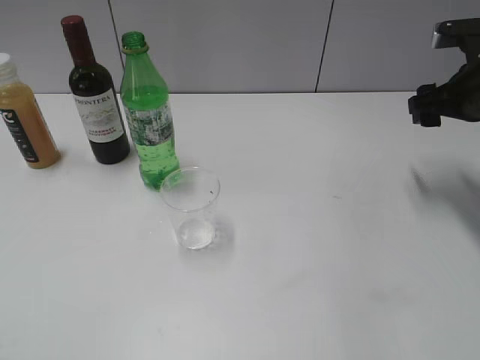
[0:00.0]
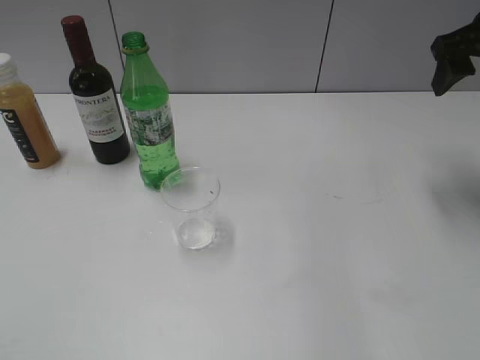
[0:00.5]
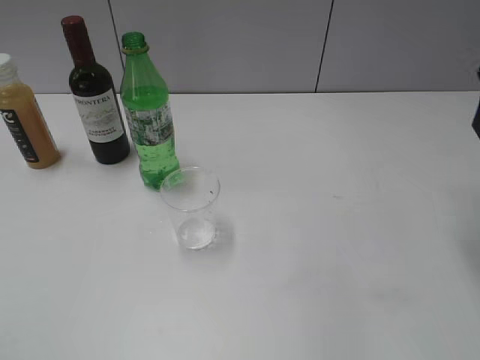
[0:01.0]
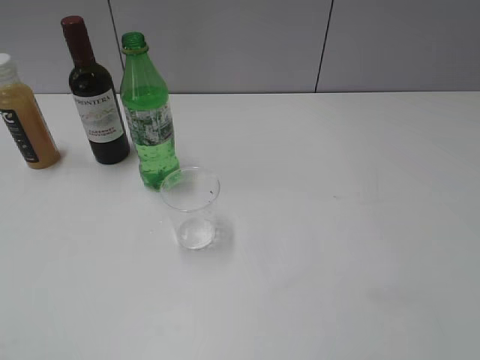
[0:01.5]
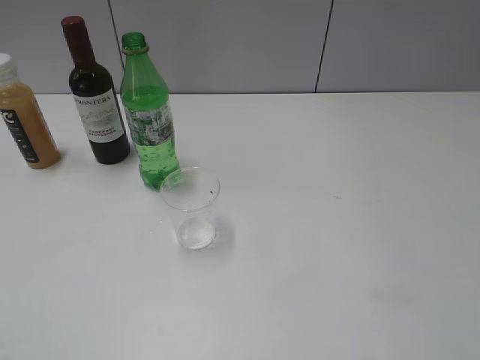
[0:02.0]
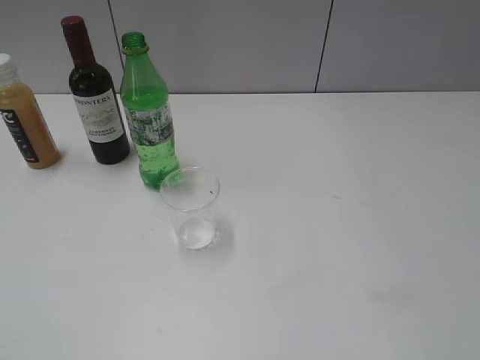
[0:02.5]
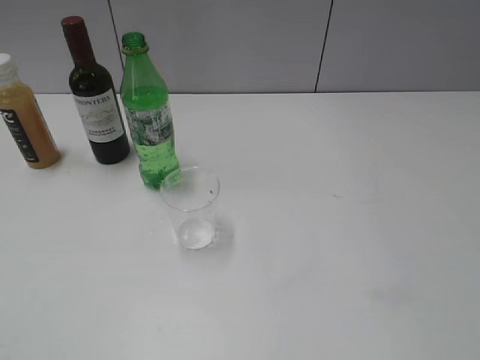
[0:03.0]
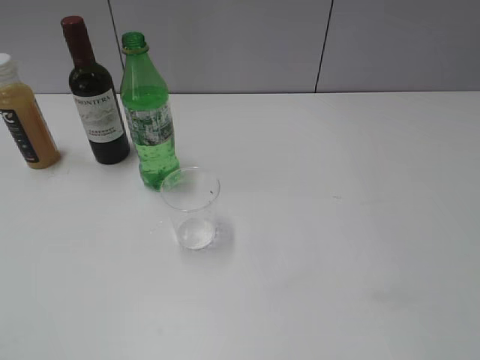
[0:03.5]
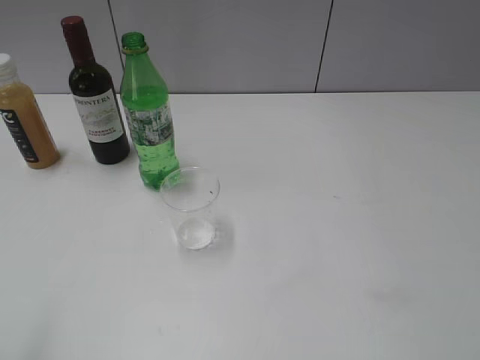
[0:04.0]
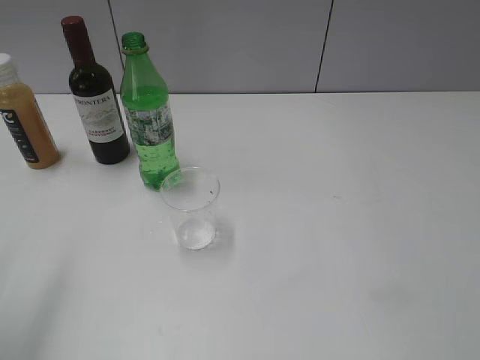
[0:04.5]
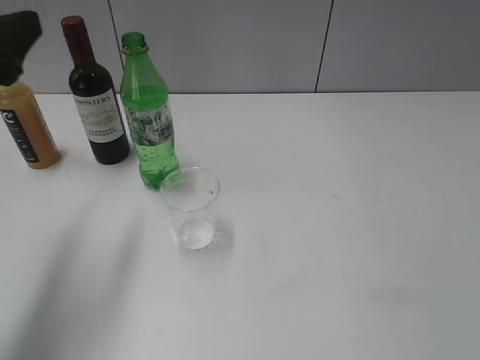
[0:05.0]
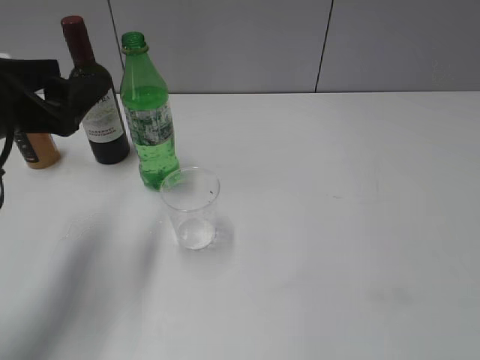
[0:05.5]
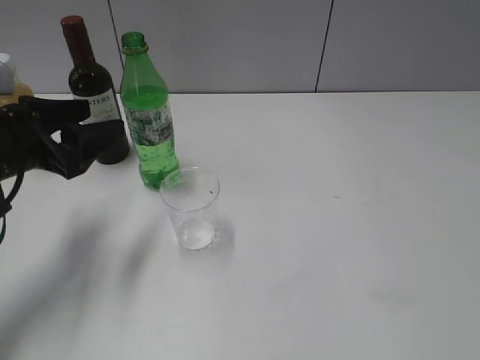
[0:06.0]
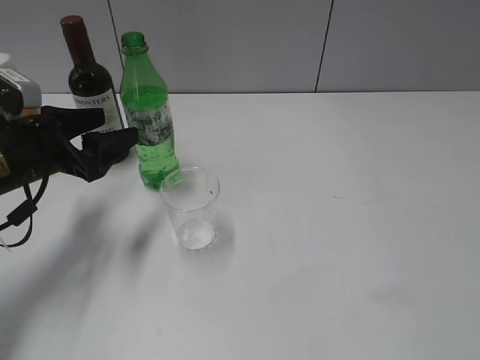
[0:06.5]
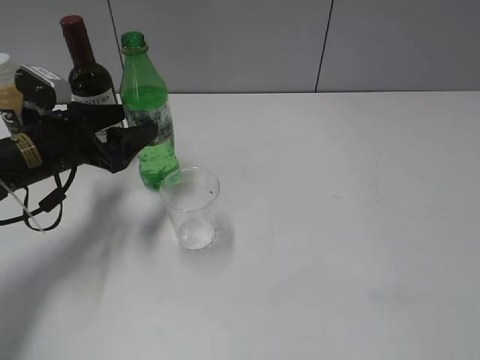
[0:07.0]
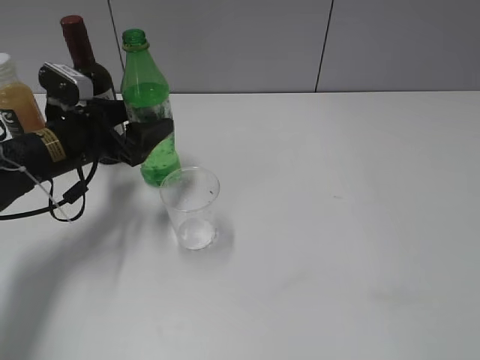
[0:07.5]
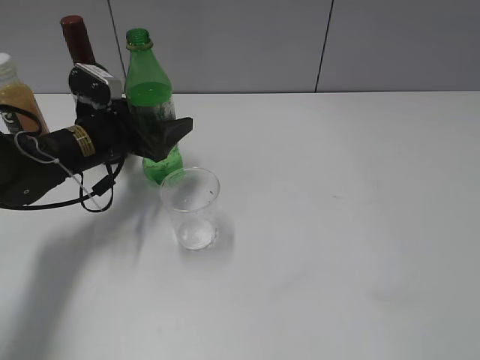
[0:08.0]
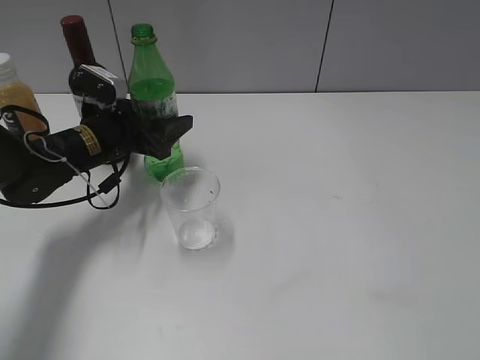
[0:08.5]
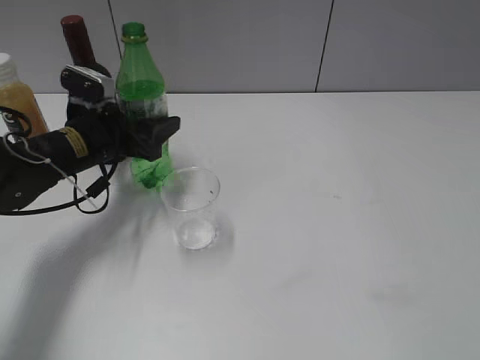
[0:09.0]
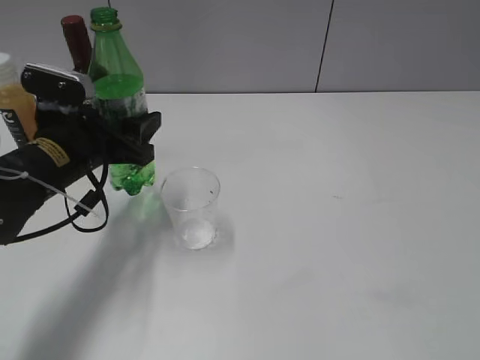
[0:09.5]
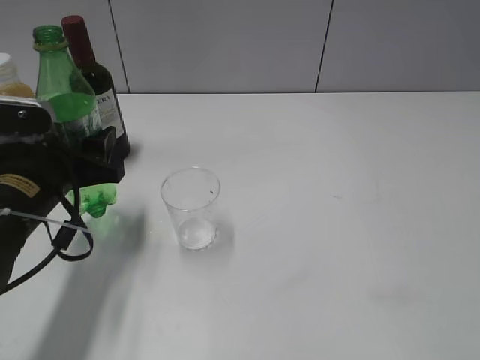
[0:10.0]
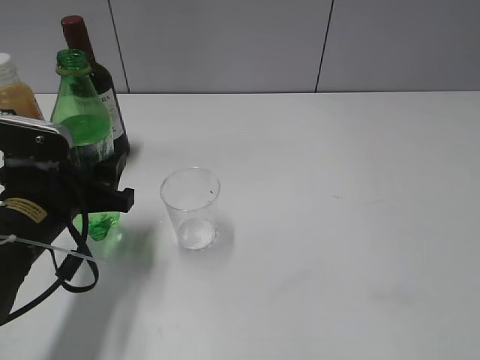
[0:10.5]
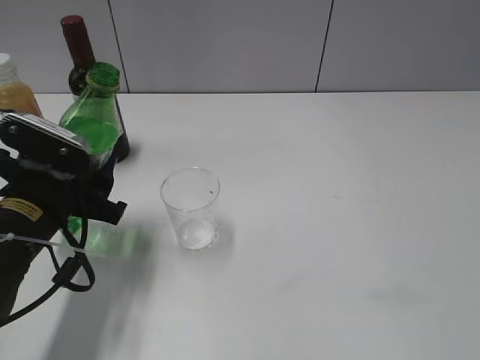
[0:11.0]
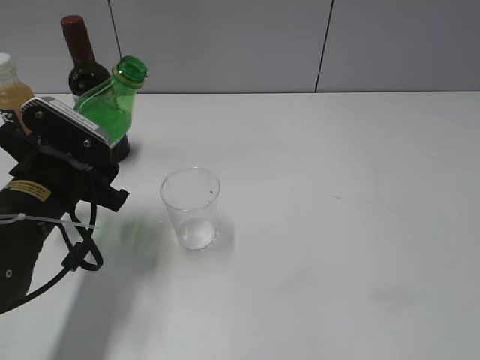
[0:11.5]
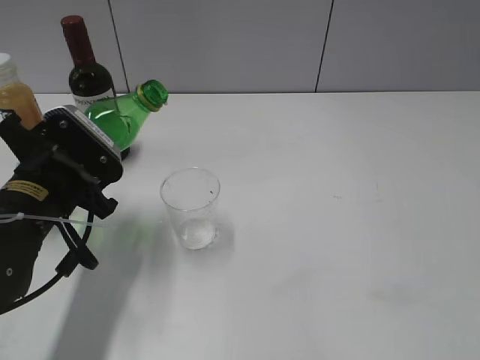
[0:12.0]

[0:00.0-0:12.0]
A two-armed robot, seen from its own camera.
Step, 0:00.0 to 0:08.5: Grasp the bottle with sprite with left gripper.
0:00.0 to 0:02.0: The right gripper moves backward, roughly 30 cm.
0:04.0 to 0:06.0: The left gripper goes some 25 cm forward and downward.
0:06.0 to 0:08.0: The left gripper shifts some 15 cm forward, downward and to the right.
0:08.0 to 0:10.0: The left gripper is displaced backward by approximately 10 cm, and closes.

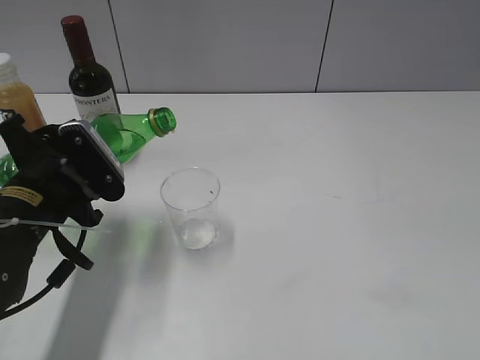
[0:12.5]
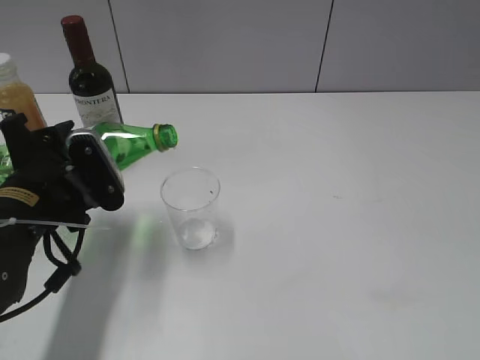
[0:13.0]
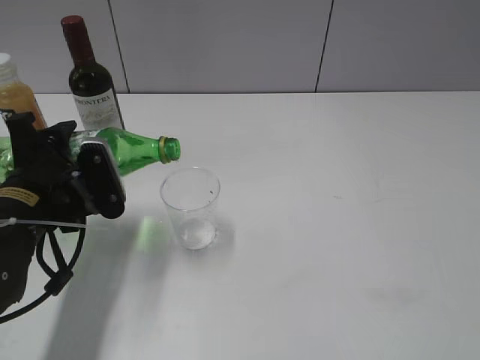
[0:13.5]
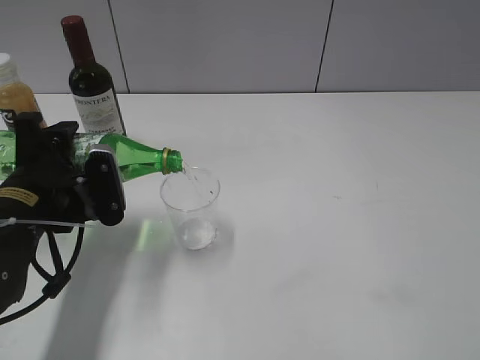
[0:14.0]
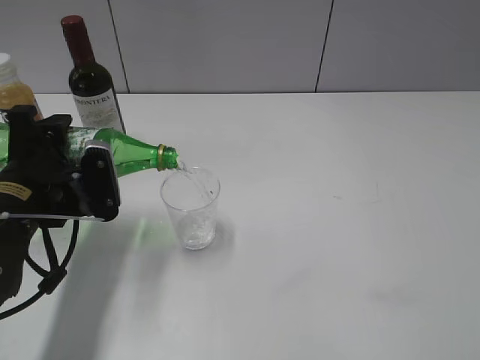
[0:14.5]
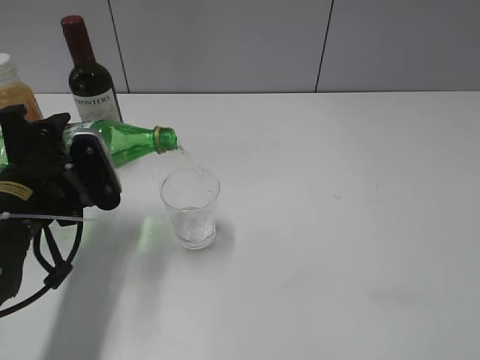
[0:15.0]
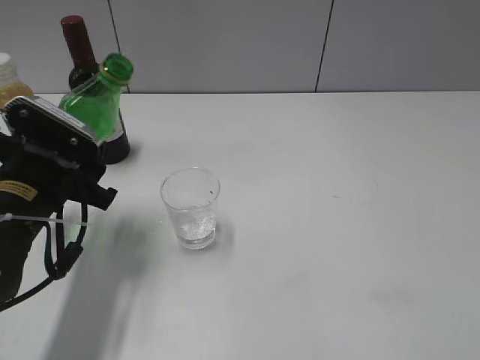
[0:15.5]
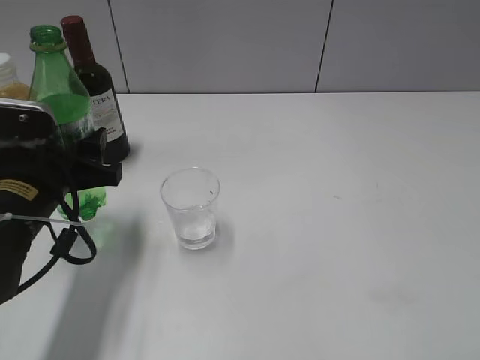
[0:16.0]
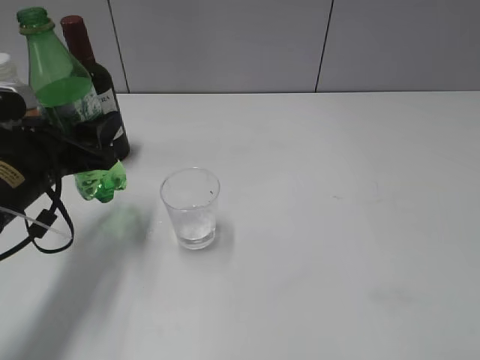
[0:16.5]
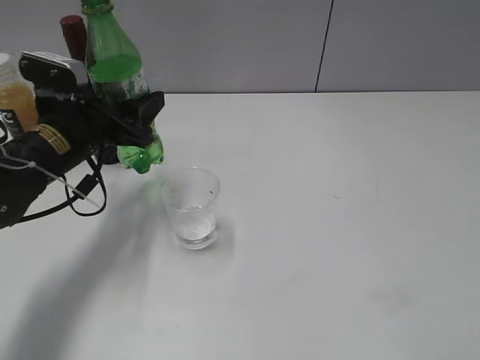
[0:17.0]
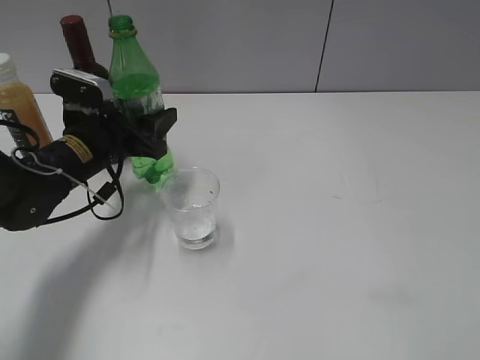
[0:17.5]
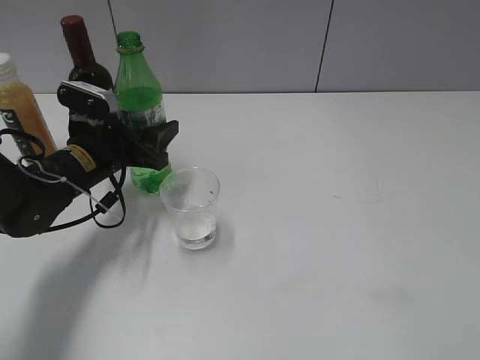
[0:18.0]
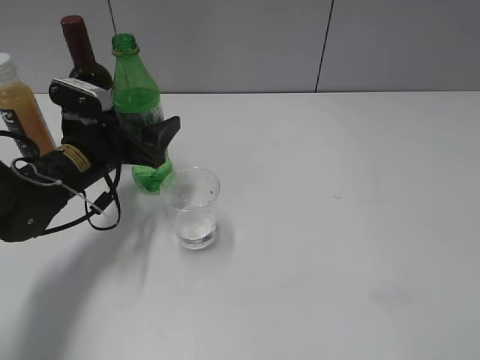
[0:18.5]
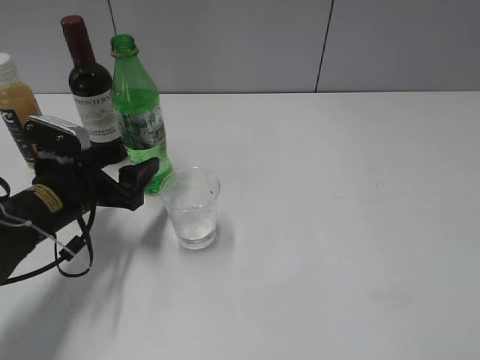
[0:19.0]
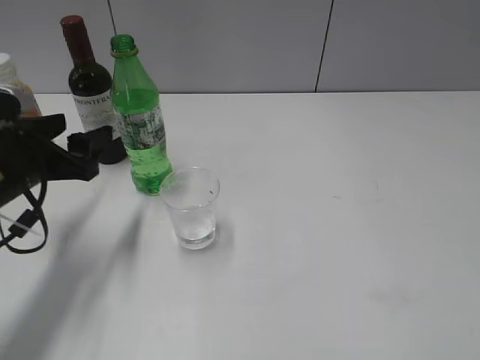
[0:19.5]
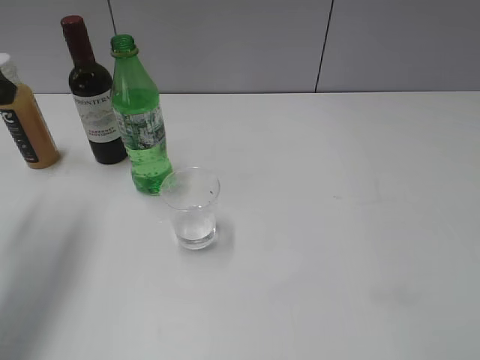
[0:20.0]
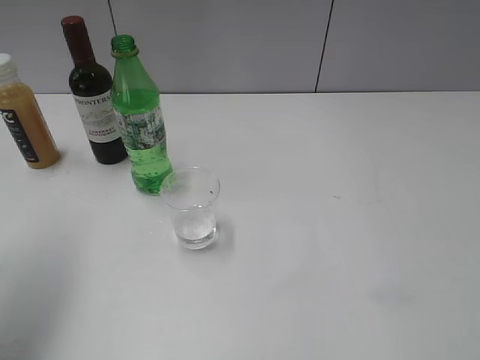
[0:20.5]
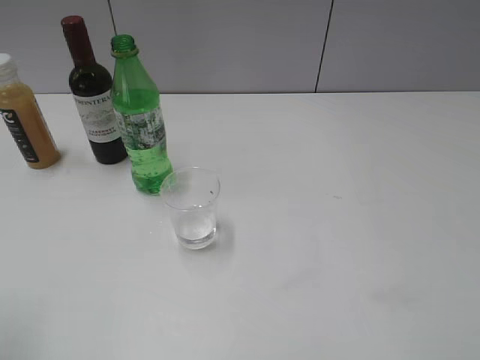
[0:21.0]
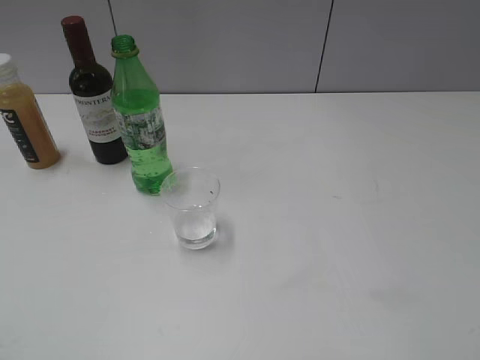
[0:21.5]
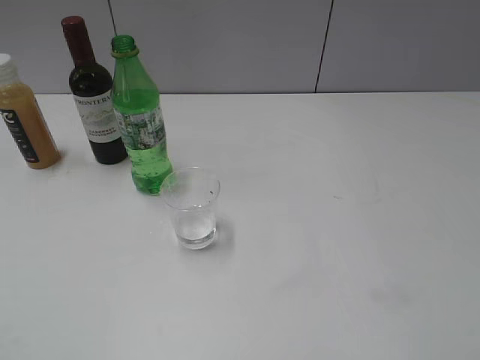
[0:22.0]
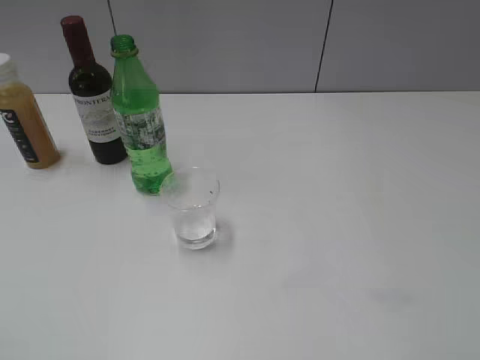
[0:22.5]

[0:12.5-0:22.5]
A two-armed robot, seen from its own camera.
Step, 0:12.5 to 0:15.0: Pour the sprite from bottle to cup with left gripper.
Step, 0:15.5 to 0:19.0: Place the sprite bottle on the table with left gripper.
0:16.5 to 0:18.5: The left gripper is displaced forward by roughly 5 cm, and opens its fingers.
0:18.5 to 0:20.5: The left gripper moves upward, backward and to the left, some 30 cm.
0:20.5 to 0:22.5: The left gripper is displaced backward by some 25 cm.
